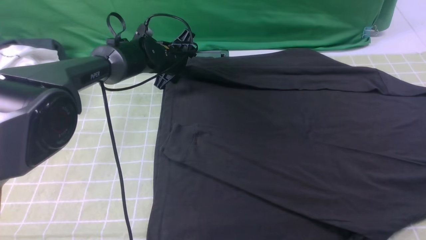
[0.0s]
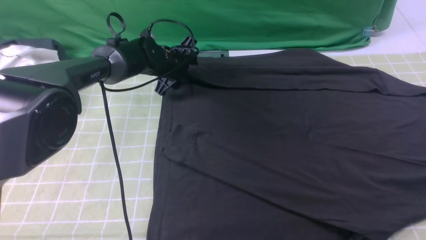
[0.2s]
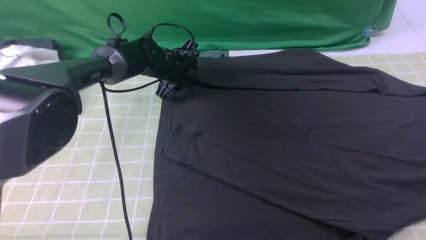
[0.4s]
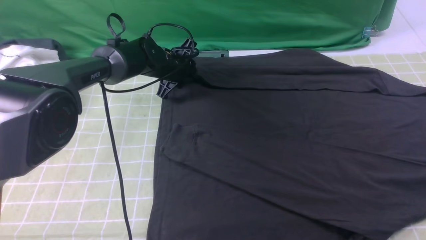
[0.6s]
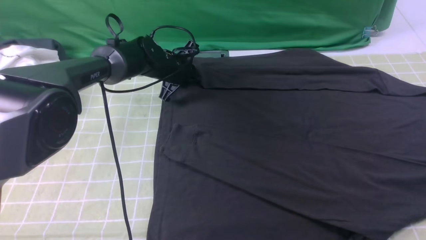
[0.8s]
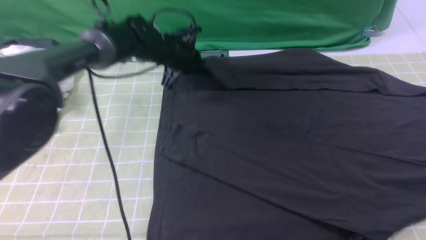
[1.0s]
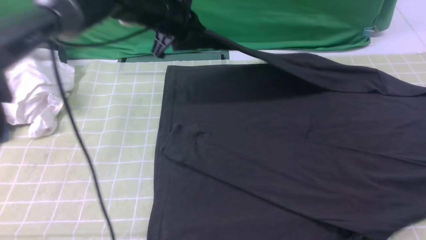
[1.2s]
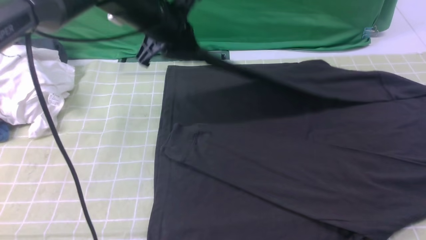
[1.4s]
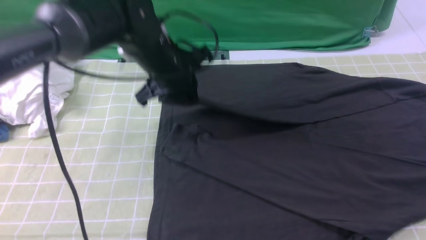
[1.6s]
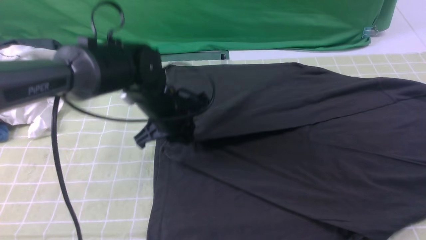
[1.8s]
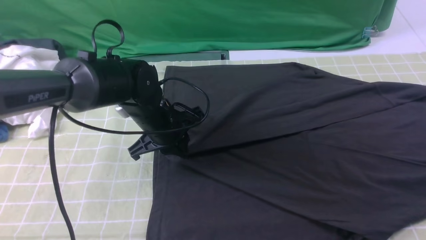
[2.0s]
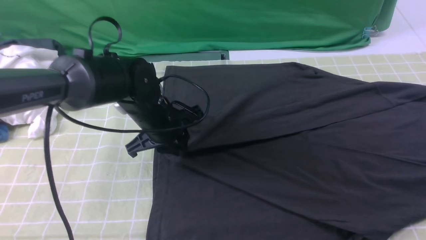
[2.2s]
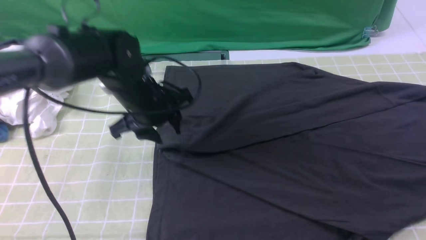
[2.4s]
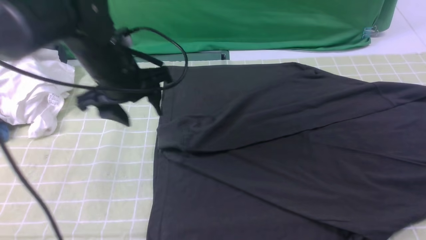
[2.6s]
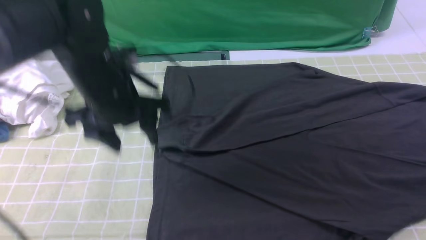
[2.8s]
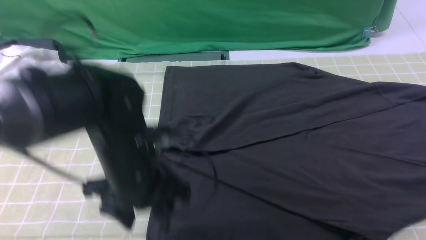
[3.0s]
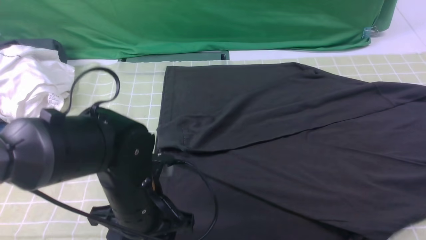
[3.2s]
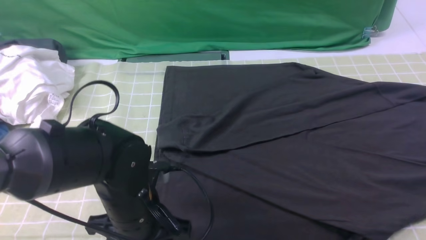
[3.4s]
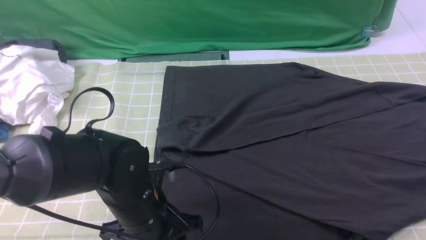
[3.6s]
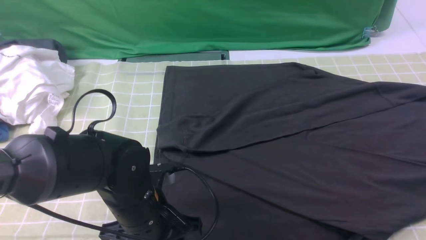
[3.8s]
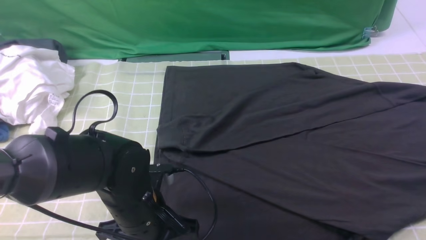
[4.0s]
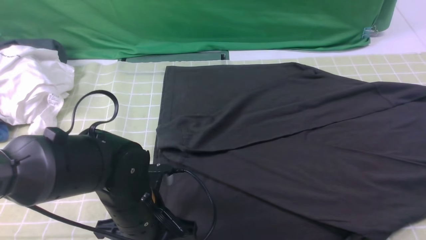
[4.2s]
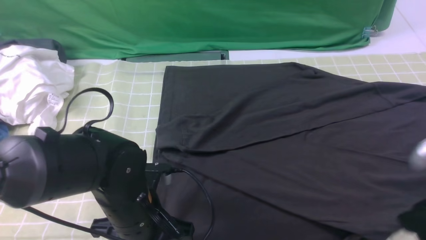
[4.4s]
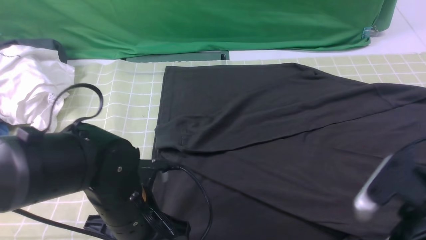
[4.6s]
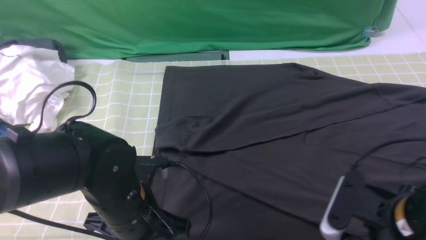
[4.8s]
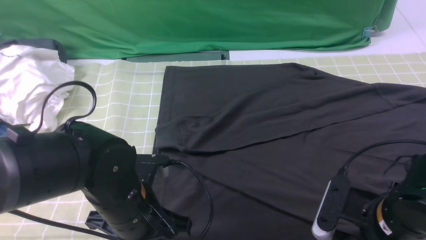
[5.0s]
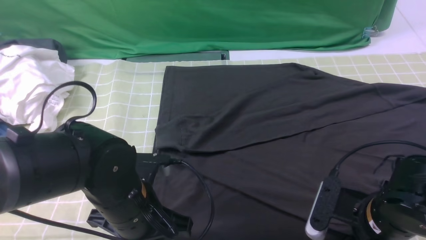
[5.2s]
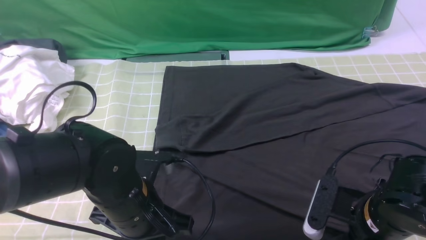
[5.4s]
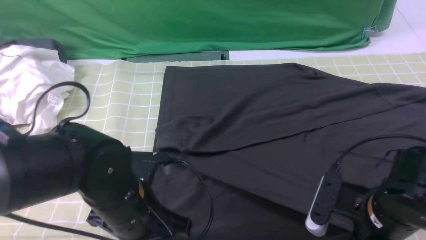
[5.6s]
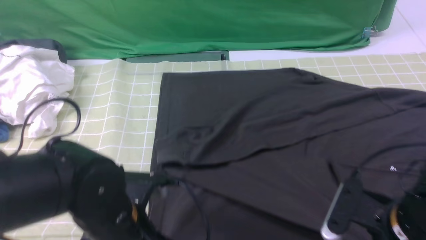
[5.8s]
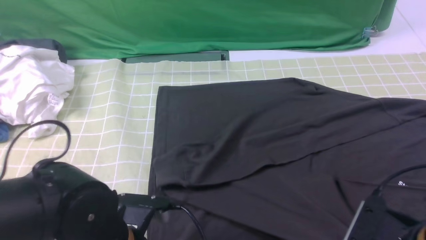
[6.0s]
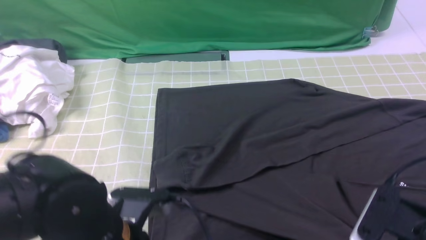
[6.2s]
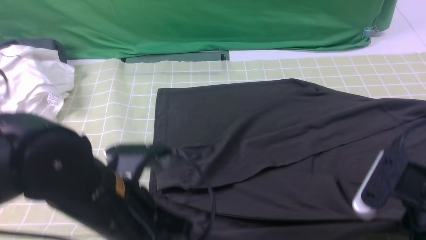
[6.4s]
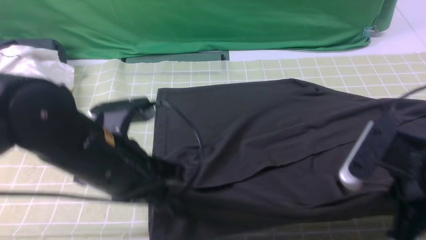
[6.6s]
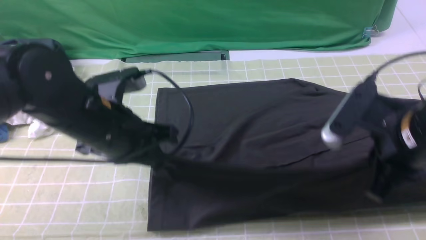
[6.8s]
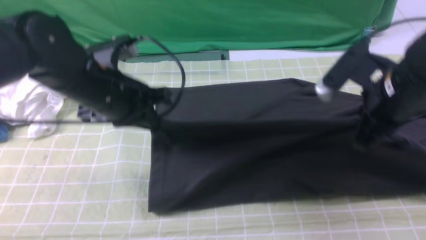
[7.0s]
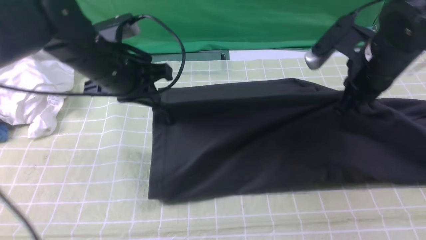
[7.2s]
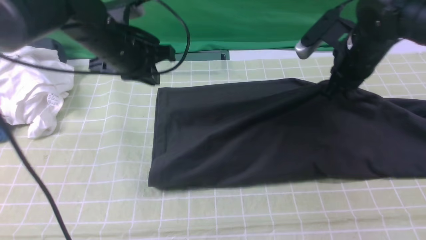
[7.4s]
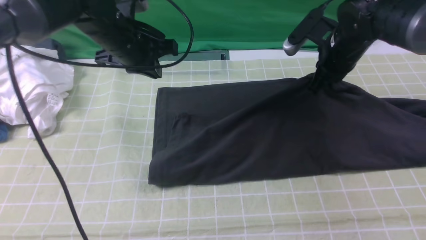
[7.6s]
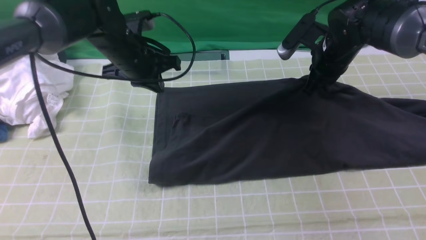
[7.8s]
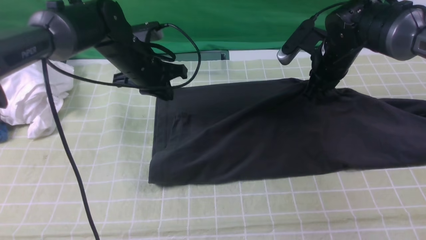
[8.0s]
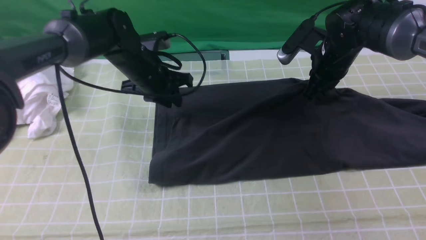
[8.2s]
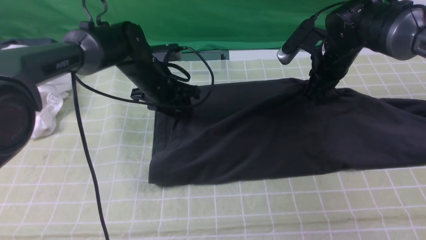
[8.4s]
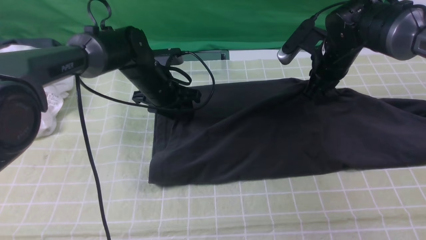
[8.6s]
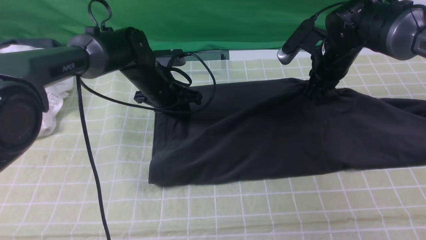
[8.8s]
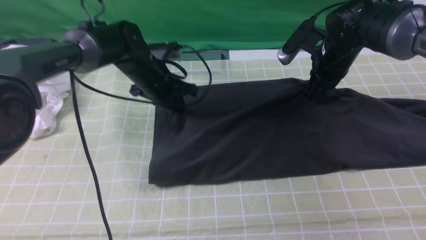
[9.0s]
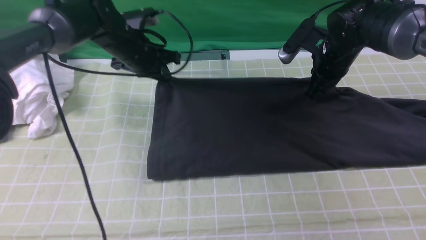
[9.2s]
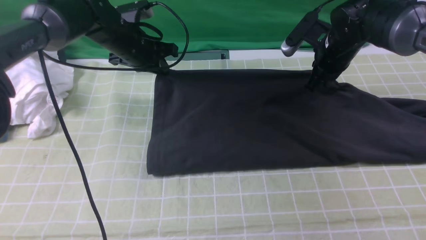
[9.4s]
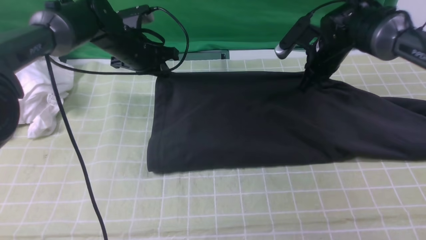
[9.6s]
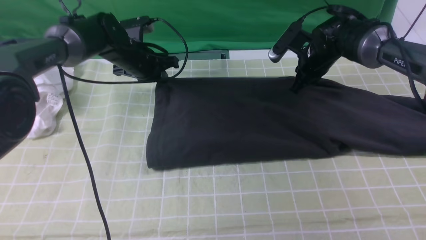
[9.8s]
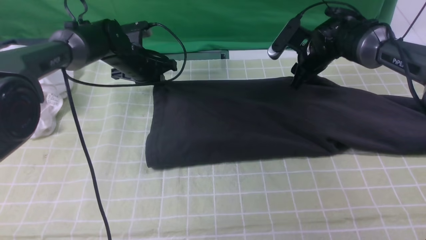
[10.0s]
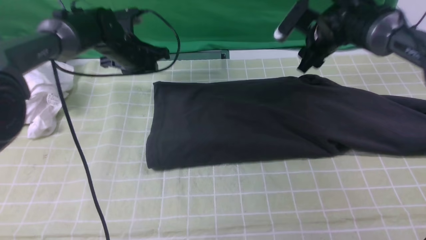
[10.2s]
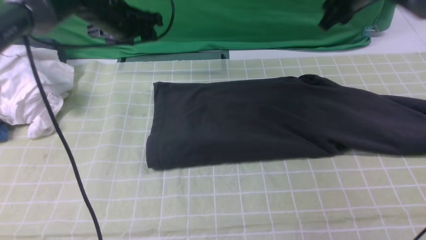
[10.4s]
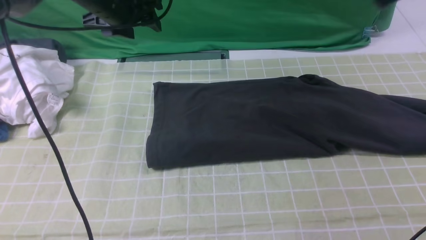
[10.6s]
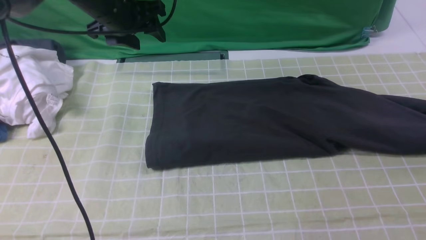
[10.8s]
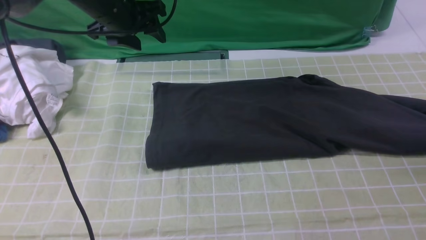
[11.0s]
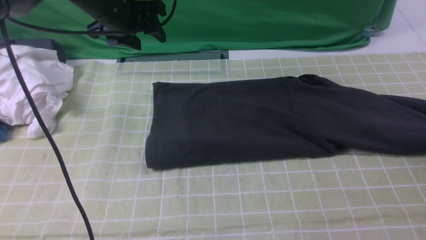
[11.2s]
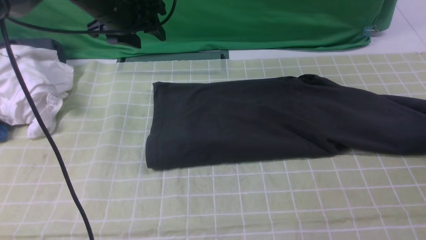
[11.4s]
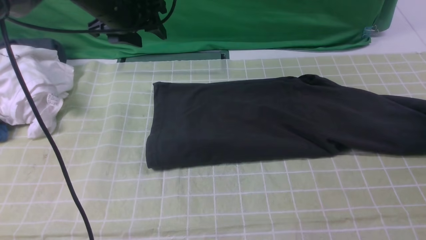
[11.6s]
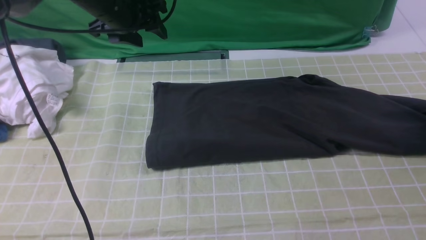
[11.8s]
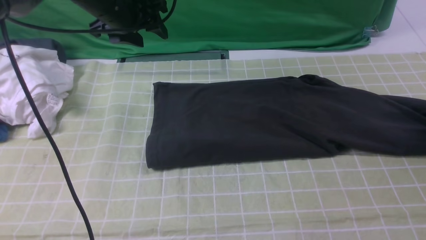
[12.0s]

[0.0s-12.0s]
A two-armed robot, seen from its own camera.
Step, 1.0s to 2.4s: use the left arm to drag and drop the cuff onto the cuff closest to the left arm.
Step, 2.6s to 5.4s: use both arms simultaneously to clamp the lower edge of the clothing fabric.
Step, 5.6s to 10.2s: use both arms to drag the lower edge of the fabric forward and fold it over the upper edge.
0.0s to 1.6s: The left gripper is displaced backward and upward by roughly 15 cm, and closes up.
1.6s to 3.0s: The left gripper moves backward, roughly 15 cm, and opens up.
3.0s to 4.4s: The left gripper moves roughly 5 cm, and closes up, while the right gripper moves roughly 5 cm.
4.4s to 6.0s: The right gripper travels downward by approximately 5 cm, and closes up; the left gripper travels backward by some 5 cm.
6.0s to 7.6s: Both grippers travel together forward, about 30 cm.
7.6s to 9.0s: The left gripper shifts approximately 5 cm downward, and opens and closes again.
9.0s to 10.4s: Both grippers travel together upward, approximately 10 cm. The left gripper opens its fingers.
10.4s to 12.0s: The right gripper is displaced to the right and downward by some 30 cm, and opens up.

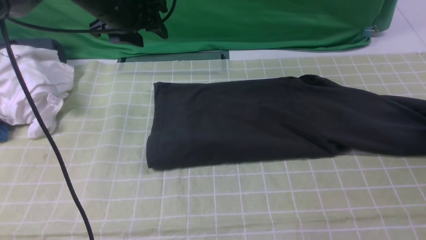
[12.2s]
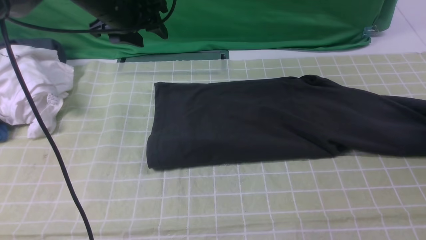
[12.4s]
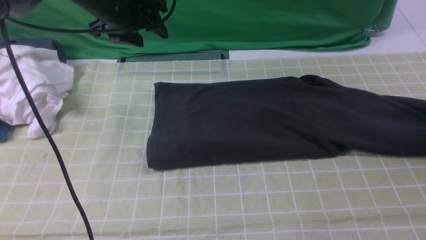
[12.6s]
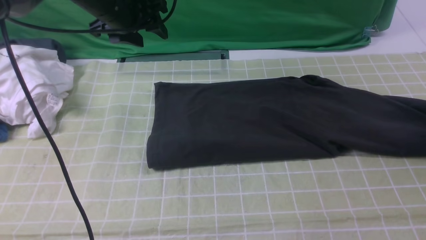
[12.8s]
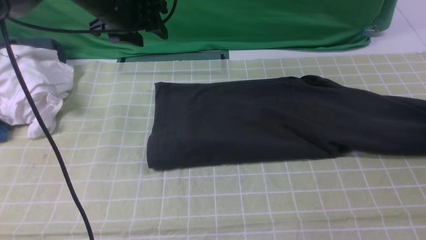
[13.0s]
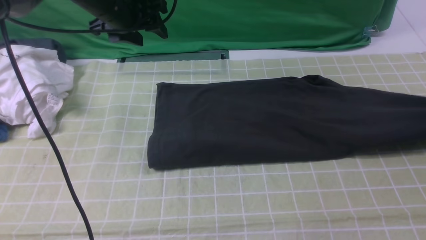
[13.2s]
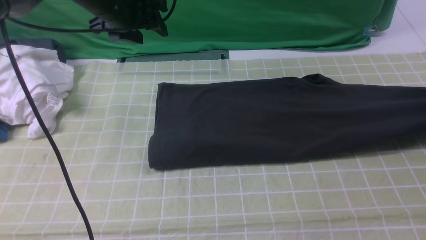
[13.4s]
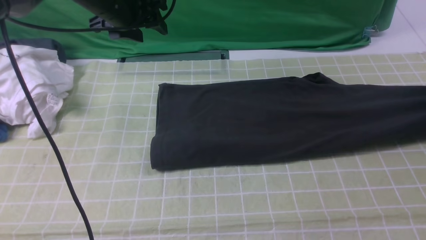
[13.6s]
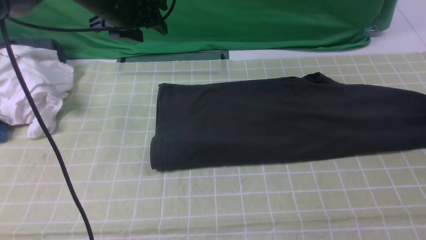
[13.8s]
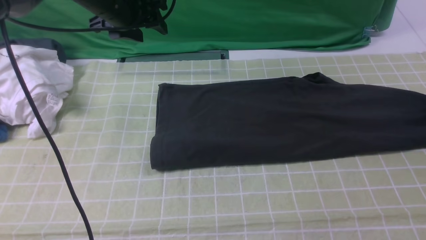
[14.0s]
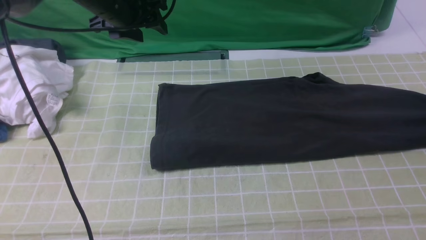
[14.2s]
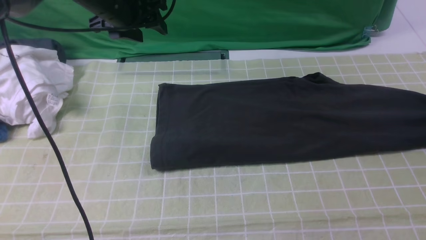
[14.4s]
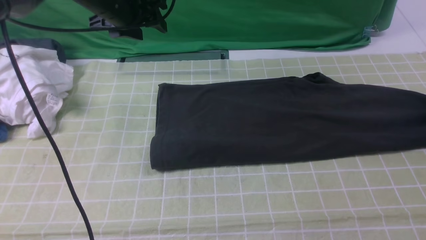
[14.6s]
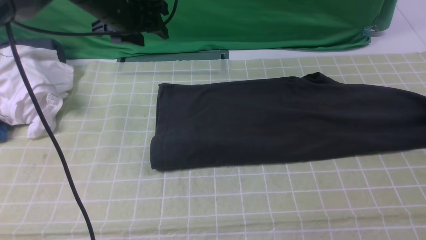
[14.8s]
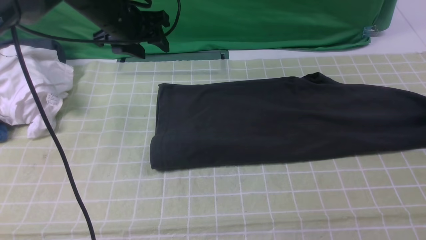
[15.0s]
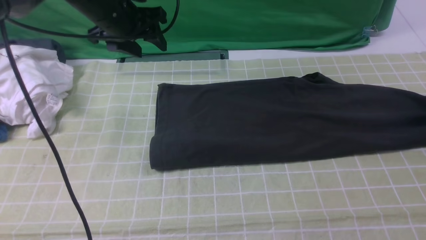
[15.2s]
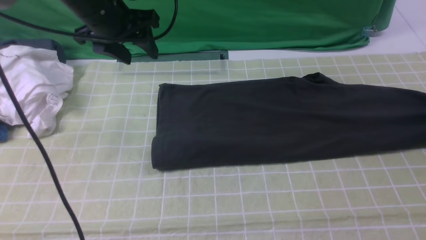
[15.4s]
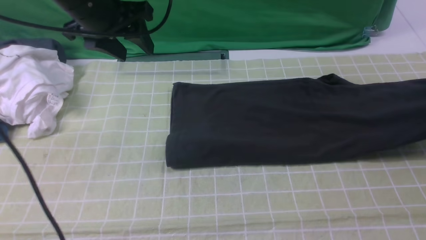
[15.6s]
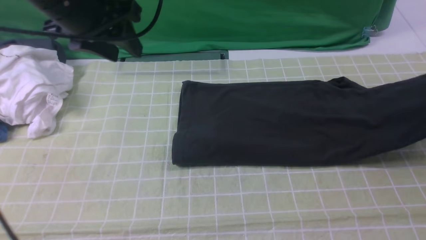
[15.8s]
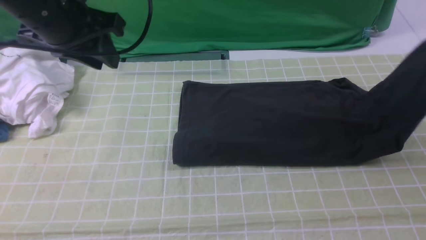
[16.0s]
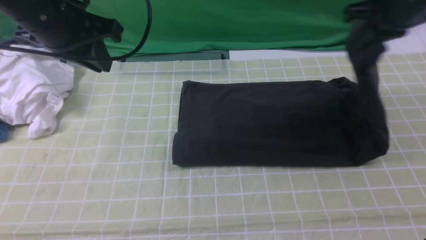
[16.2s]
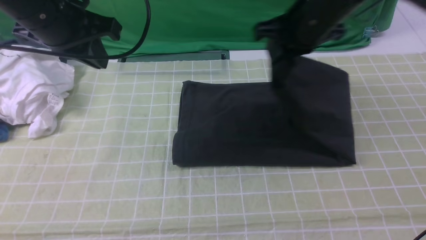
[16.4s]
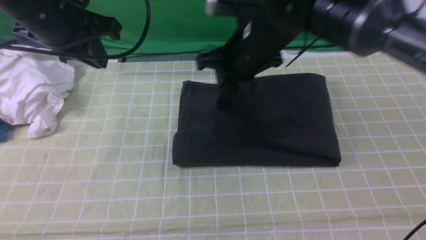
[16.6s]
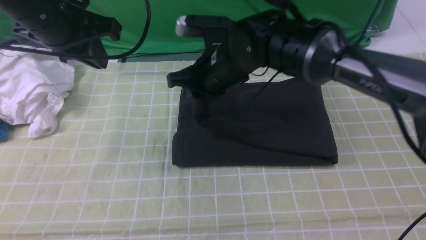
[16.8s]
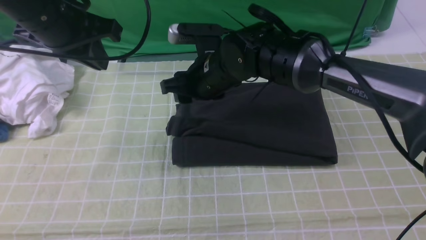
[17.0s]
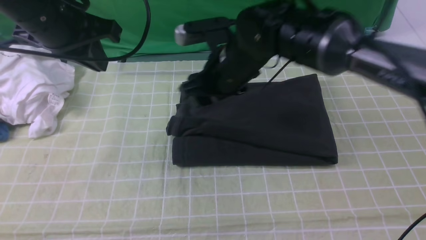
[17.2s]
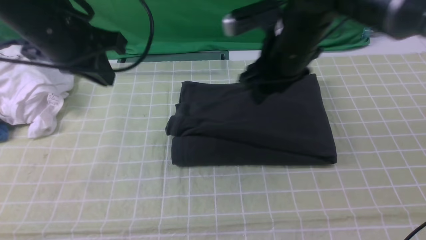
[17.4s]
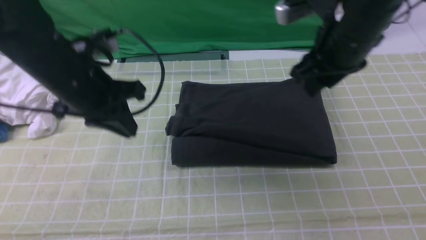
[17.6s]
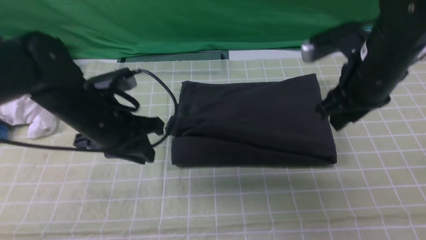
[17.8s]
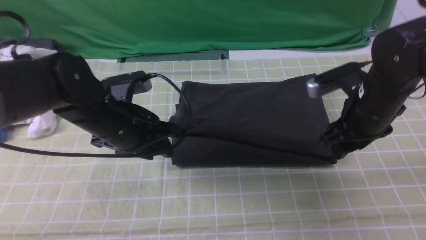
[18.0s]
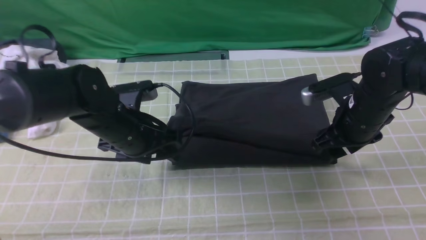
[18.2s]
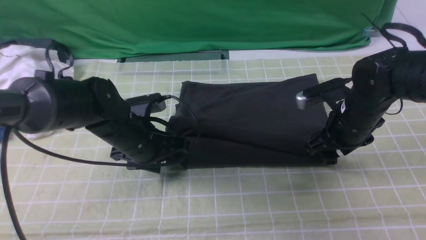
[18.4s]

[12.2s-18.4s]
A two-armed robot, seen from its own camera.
Step, 12.2s to 15.2s: use the right arm to clamp the right edge of the fabric.
Step, 15.4s to 17.2s: use the right arm to drag the right edge of the fabric to the left and folds it over the left edge.
12.2s to 13.8s: The right gripper changes place by approximately 5 cm, and closes, then opens again.
13.8s to 15.4s: The right gripper closes up.
15.4s to 16.8s: The left gripper moves backward, about 10 cm, and closes. Meanwhile the right gripper moves to the left, about 50 cm.
16.8s to 18.4s: The left gripper travels downward by some 20 cm, and opens its fingers; the right gripper shifts about 20 cm to the right, and opens up.
